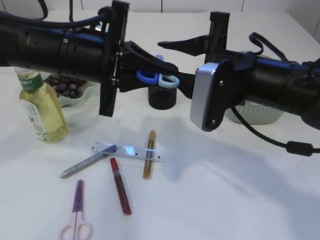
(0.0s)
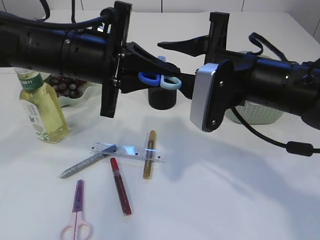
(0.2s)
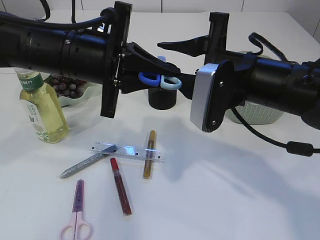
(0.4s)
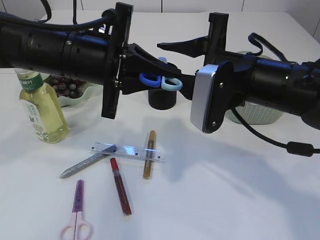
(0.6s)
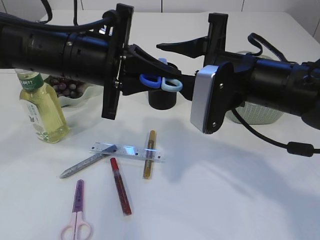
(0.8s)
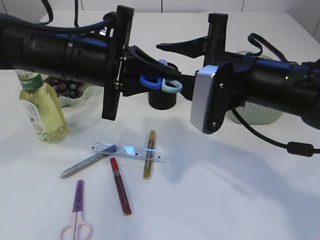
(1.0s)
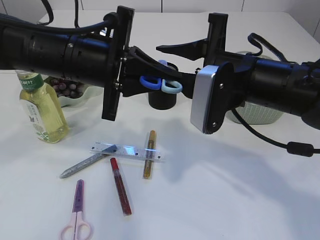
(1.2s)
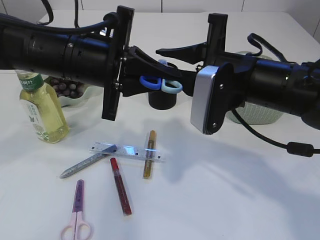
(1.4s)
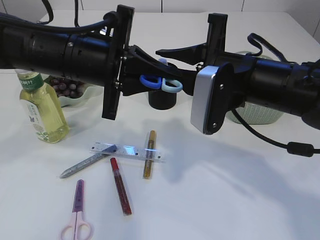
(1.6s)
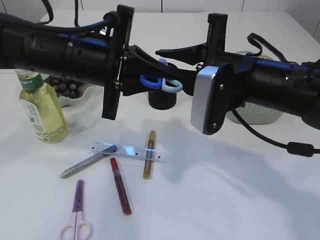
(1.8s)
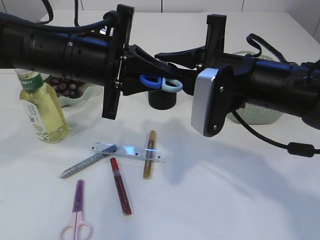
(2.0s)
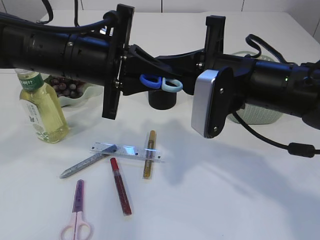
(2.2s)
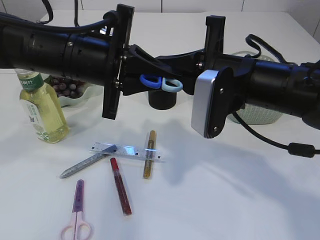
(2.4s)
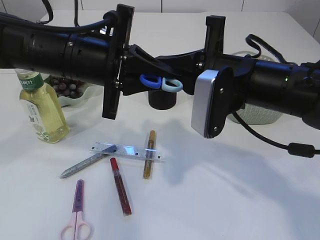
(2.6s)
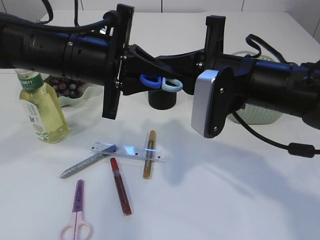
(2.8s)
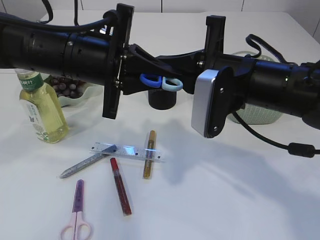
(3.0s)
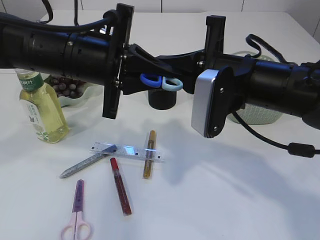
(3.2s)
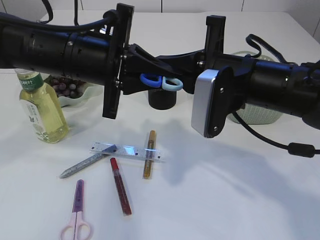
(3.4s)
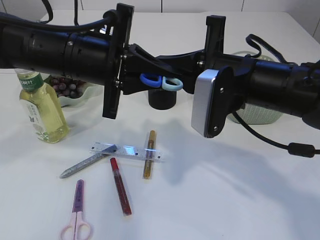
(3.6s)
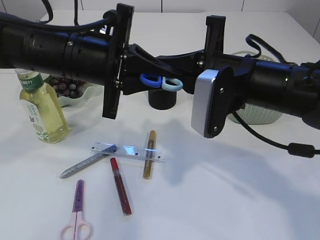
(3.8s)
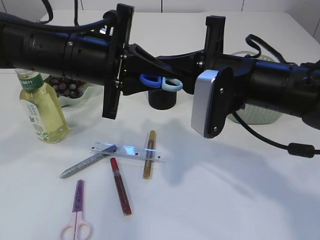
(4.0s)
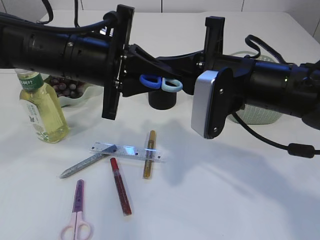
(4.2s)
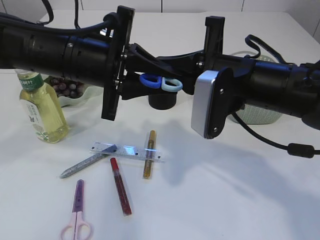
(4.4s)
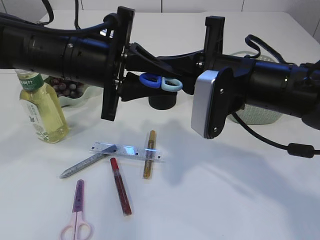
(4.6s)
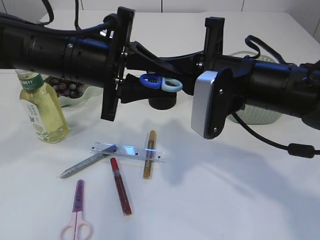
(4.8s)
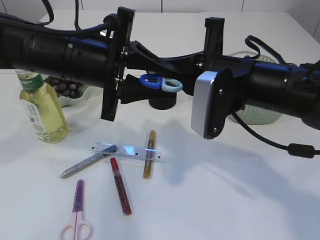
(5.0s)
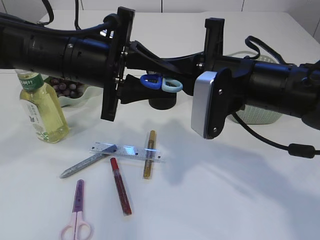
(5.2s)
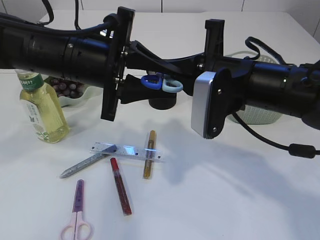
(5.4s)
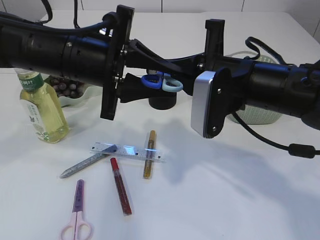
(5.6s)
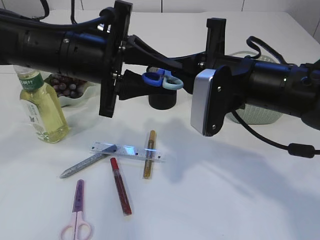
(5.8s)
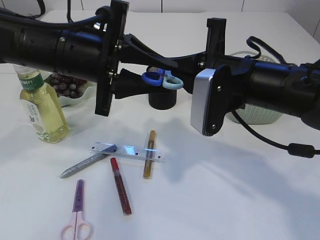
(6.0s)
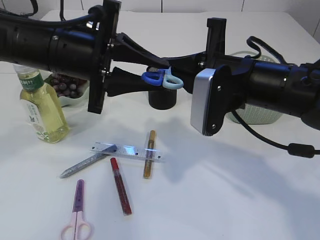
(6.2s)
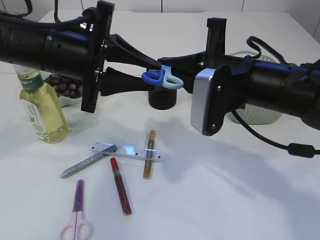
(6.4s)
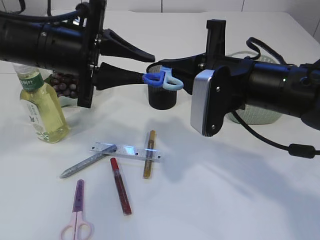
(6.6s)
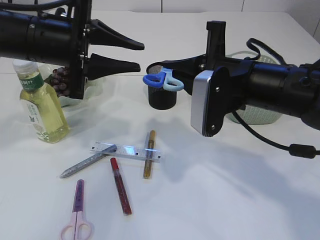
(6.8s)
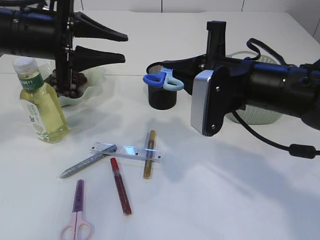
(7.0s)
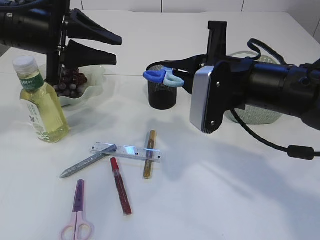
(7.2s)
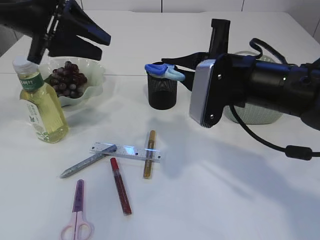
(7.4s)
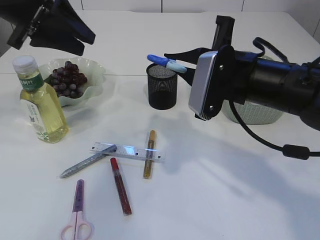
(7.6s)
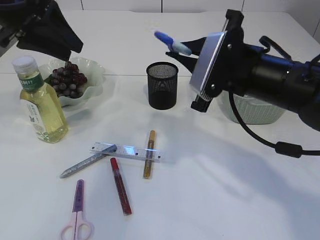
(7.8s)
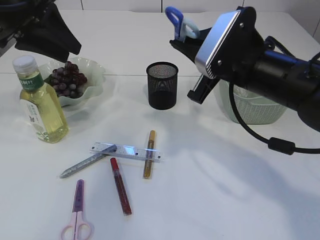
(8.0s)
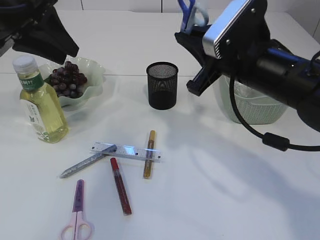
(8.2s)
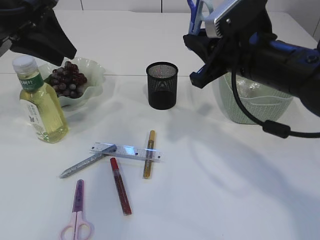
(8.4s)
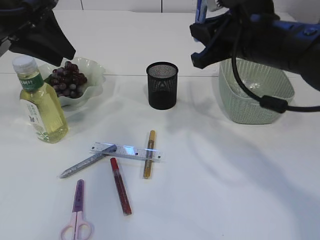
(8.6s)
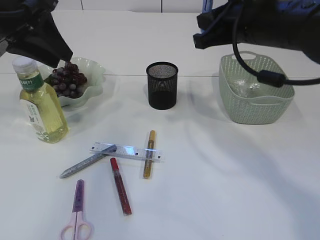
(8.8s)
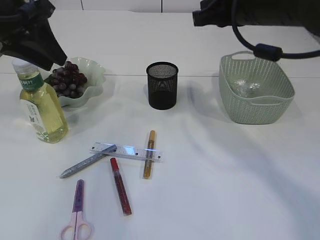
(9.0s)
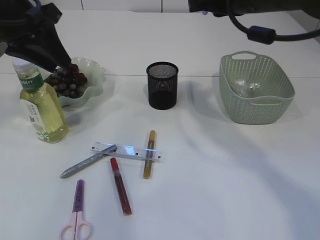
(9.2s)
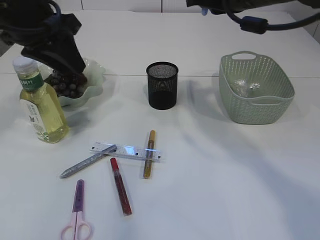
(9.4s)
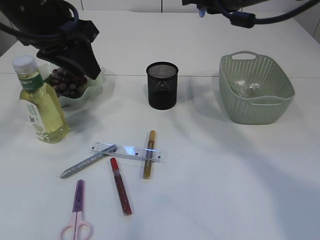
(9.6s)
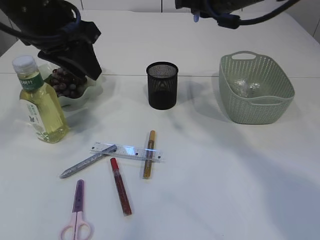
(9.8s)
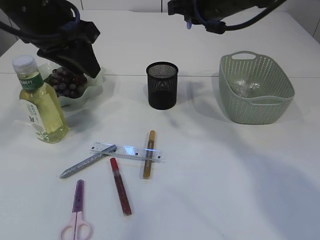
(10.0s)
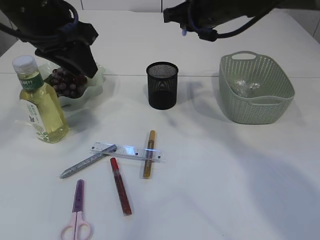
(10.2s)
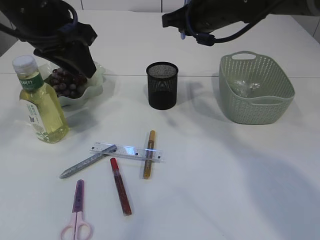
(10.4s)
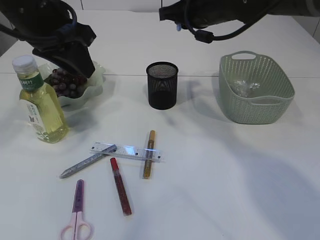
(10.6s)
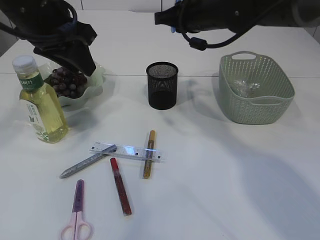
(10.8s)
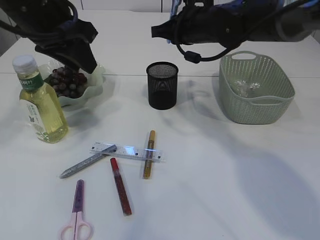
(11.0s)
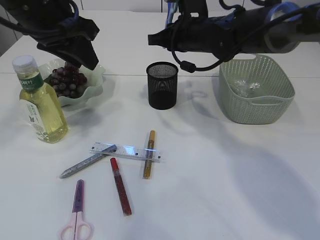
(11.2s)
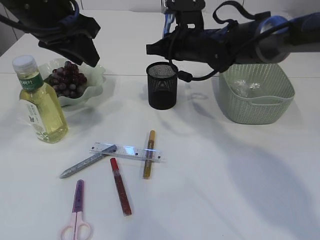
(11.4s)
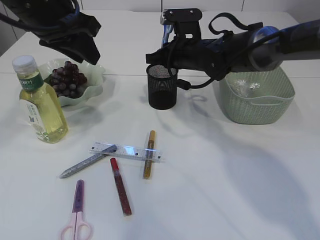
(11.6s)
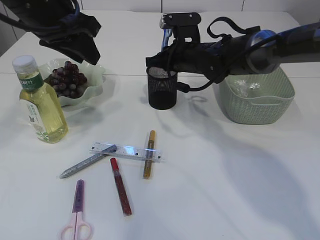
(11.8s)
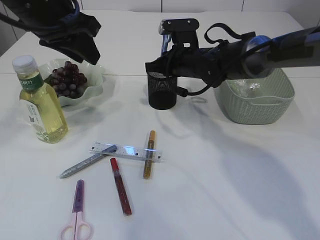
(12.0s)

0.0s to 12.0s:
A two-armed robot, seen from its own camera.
Step, 0.0s to 7.8s: Hand over the blue scissors.
0.0s to 6.0s: The two grippers keep their place.
6.0s to 7.6s: The left gripper moves to the left, upward and forward, roughly 15 cm.
7.6s to 9.0s: The right gripper moves upward, some 10 cm.
9.0s to 10.4s: The right gripper is displaced forward by roughly 10 cm, while the left gripper is displaced to the right by some 5 cm.
10.4s to 12.0s: The right gripper heads downward, covering approximately 10 cm.

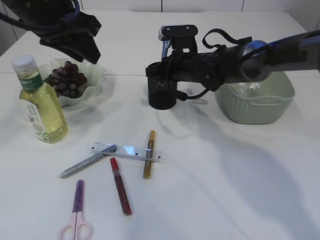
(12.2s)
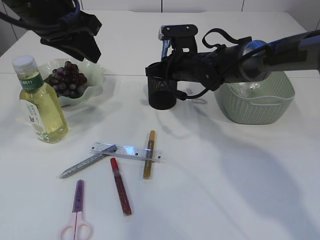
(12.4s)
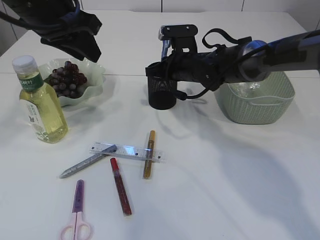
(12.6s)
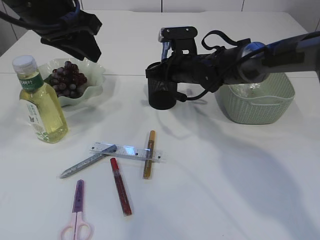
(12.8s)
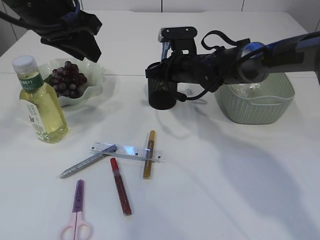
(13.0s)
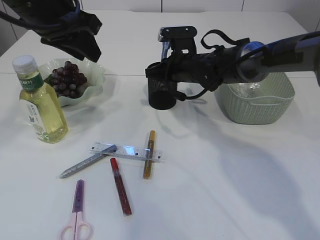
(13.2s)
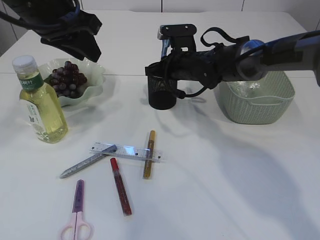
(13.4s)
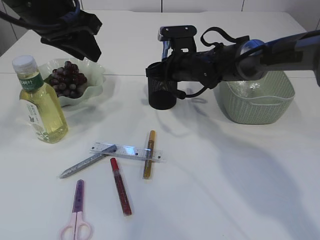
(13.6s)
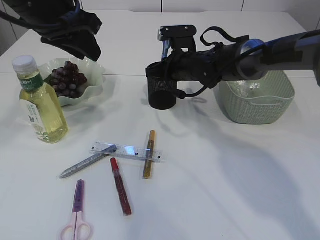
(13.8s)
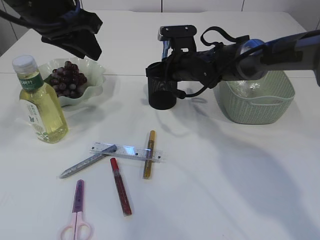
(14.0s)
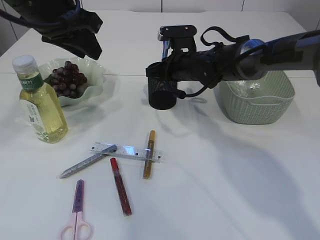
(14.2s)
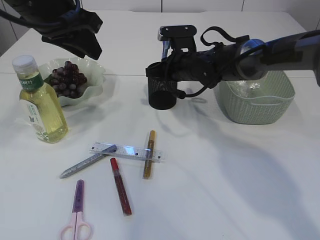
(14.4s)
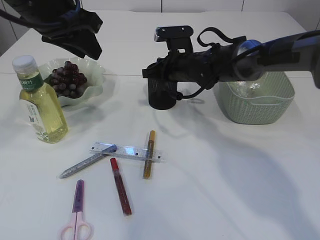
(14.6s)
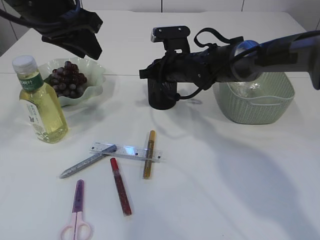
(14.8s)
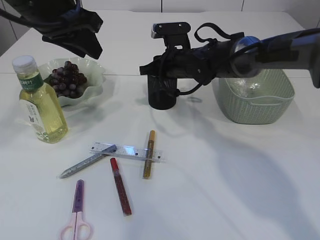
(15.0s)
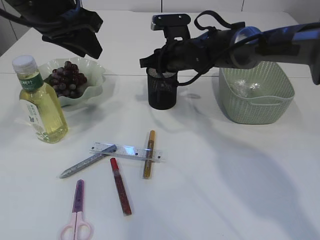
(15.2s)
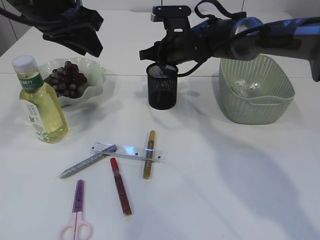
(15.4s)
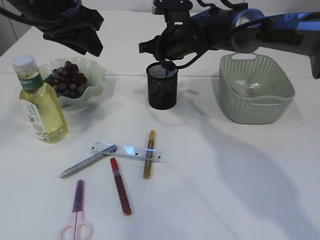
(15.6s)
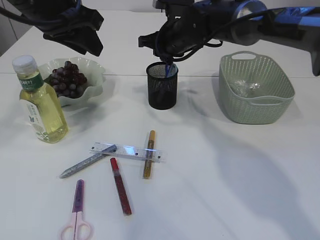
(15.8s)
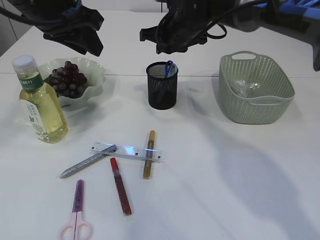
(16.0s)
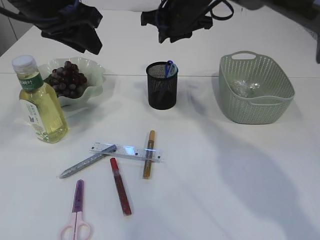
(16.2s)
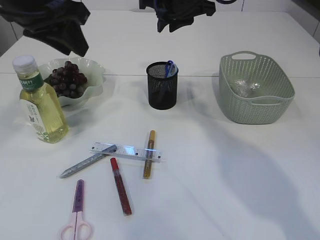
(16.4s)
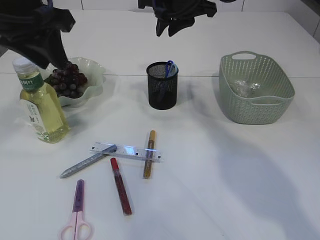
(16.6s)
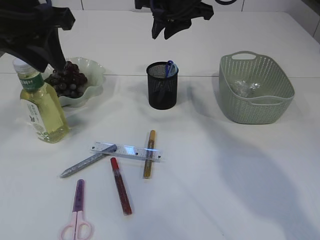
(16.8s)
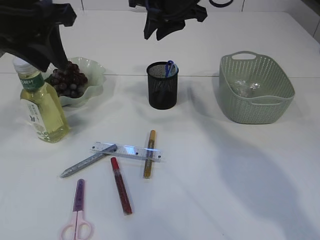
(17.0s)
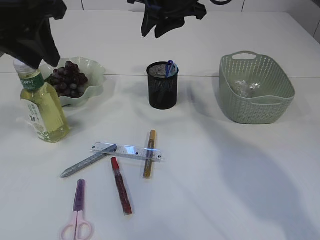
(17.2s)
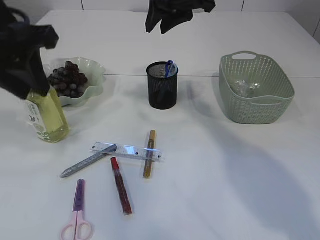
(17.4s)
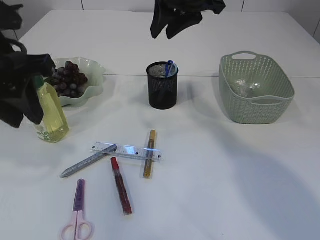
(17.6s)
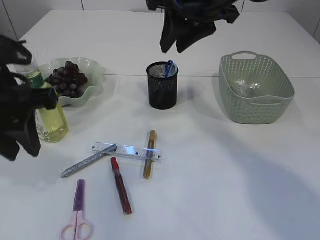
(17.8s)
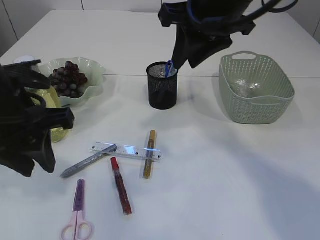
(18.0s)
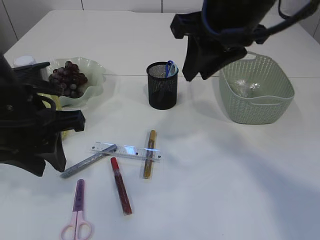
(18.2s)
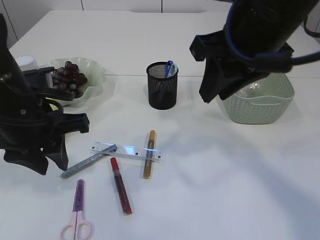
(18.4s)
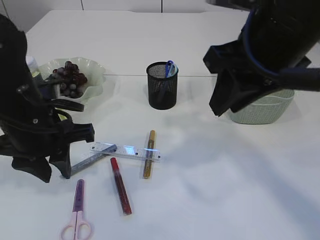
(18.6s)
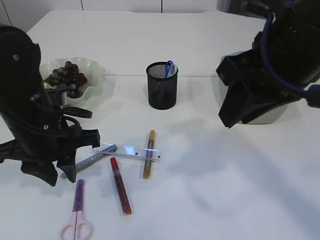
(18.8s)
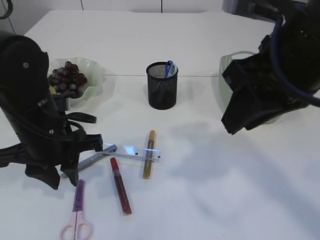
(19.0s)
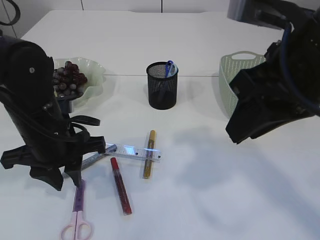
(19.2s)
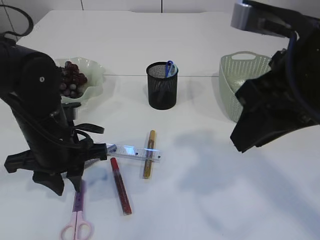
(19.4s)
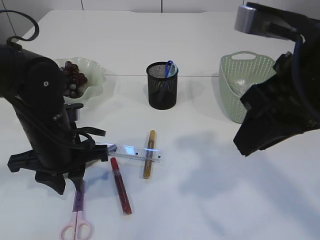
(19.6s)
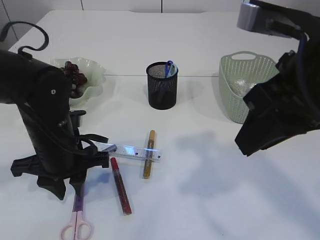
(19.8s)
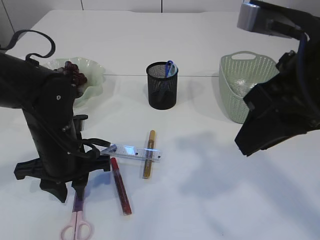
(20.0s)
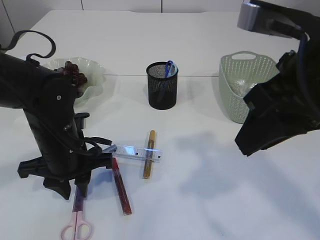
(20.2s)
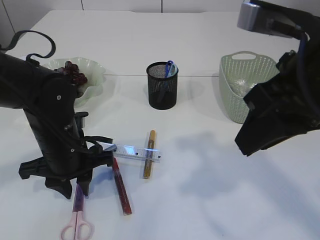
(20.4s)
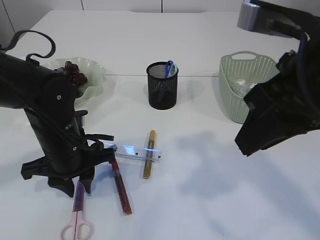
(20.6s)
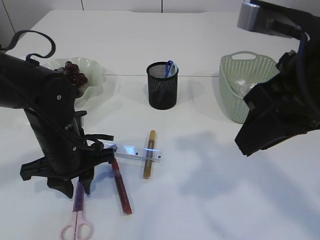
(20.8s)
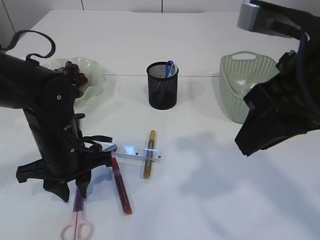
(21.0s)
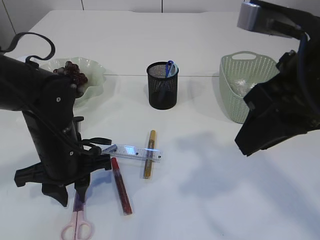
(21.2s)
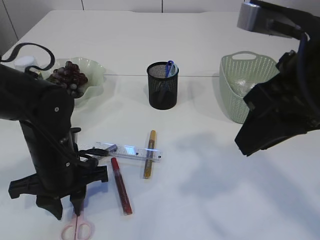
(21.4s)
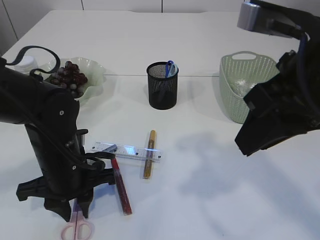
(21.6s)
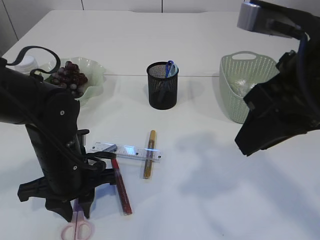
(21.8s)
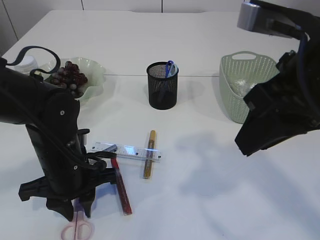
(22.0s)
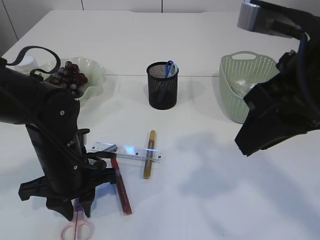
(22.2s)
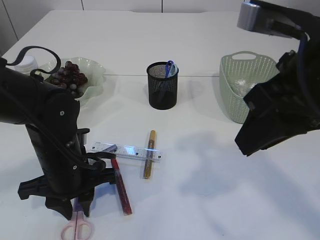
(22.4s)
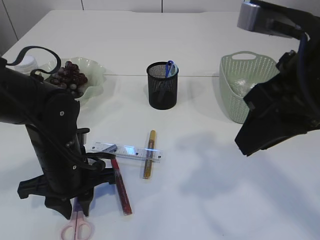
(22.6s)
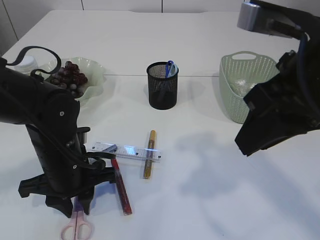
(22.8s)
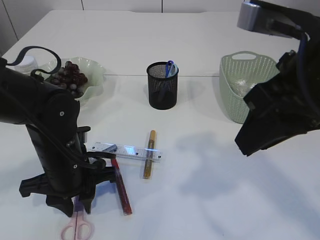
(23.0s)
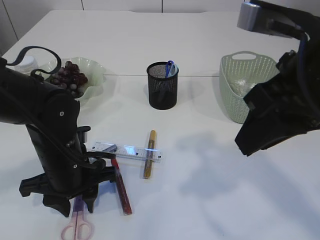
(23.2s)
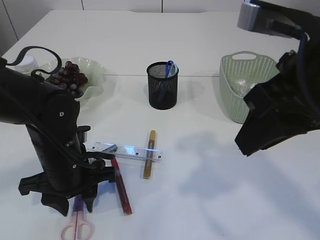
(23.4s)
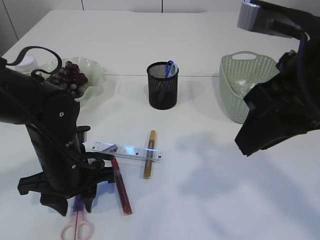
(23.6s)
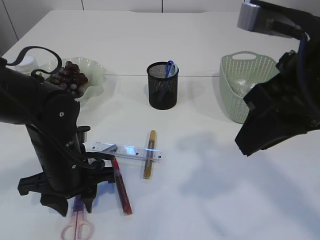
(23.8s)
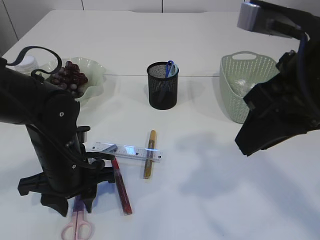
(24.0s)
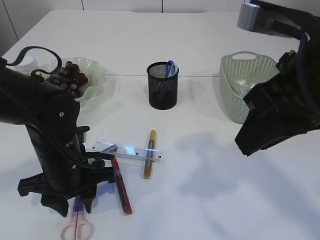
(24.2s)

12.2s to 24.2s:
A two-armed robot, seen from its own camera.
Step, 12.2s to 15.8s: Place the blue knife into the pen holder.
12.2s to 13.8s: Both grippers stay about where they are.
13.8s to 15.2s: The grippers stay close to where they were, moving slightly.
15.2s to 16.6s: The right gripper is displaced upward by some 15 cm.
16.6s to 18.2s: The left gripper heads downward and backward, covering roughly 15 cm, while the right gripper heads backward, covering approximately 15 cm.
18.2s to 19.8s: The right gripper travels backward by approximately 10 cm. The left gripper travels downward by roughly 10 cm.
19.8s to 22.6s: There are only small adjustments of the grippers.
22.6s to 24.2s: Neither gripper changes place.
